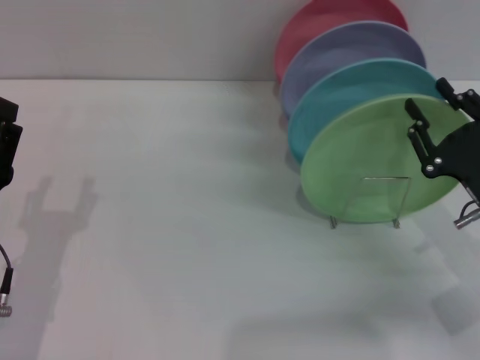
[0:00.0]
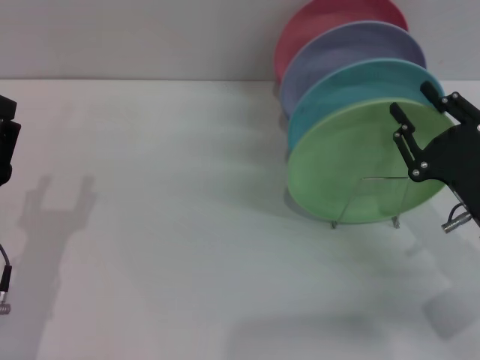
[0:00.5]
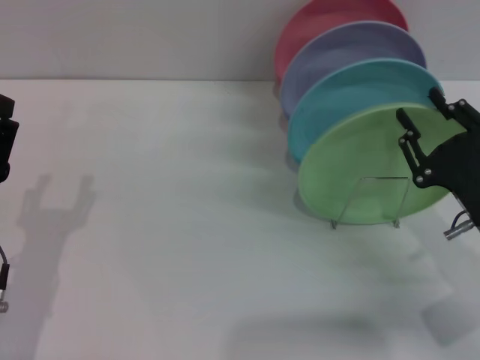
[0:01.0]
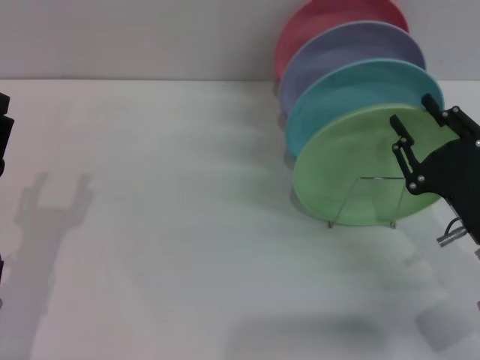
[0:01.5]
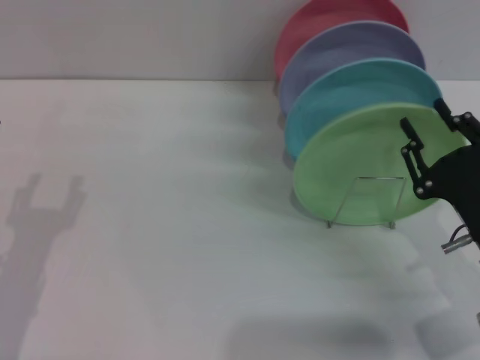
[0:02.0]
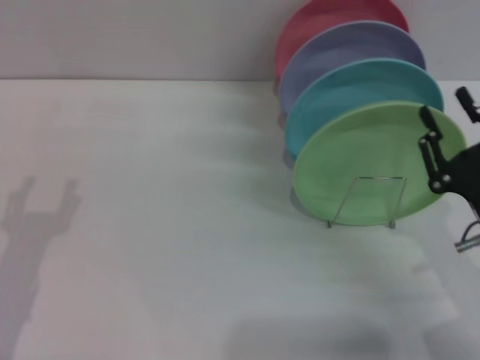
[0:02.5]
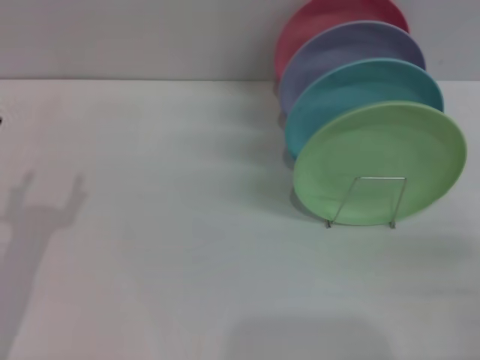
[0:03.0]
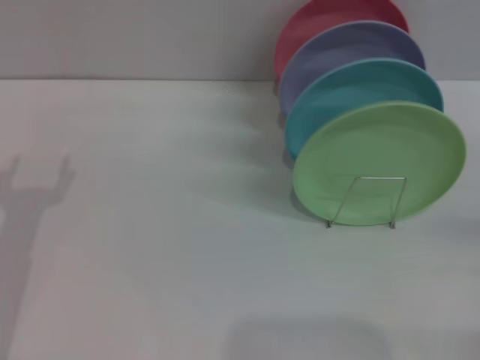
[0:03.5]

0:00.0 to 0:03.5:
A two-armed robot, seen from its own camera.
Task of the whole recording: Grip the plate with one hand, pass it to the other, then set it on the shelf.
Step, 0:00.0 to 0:02.5: Place the plate on the shelf with the right gripper.
0:00.0 to 0:02.0: The grippers make only small movements.
0:02.0 to 0:03.5: The right gripper goes approximately 15 cm to the right.

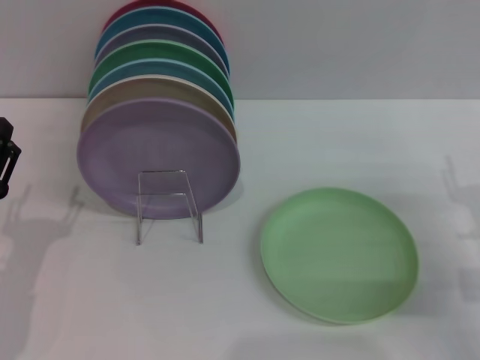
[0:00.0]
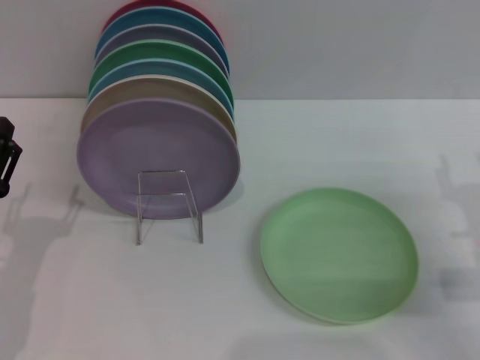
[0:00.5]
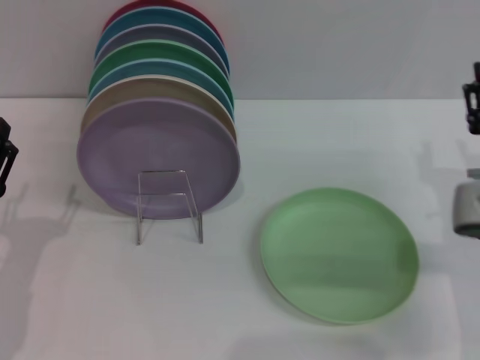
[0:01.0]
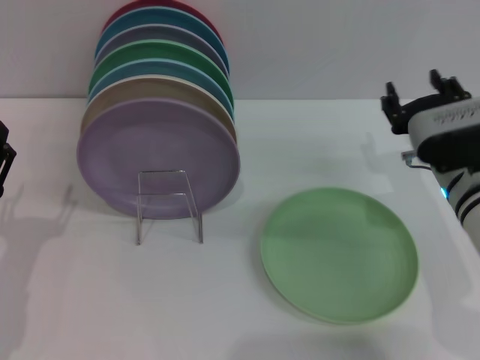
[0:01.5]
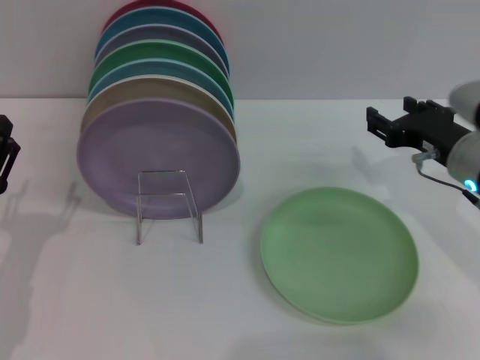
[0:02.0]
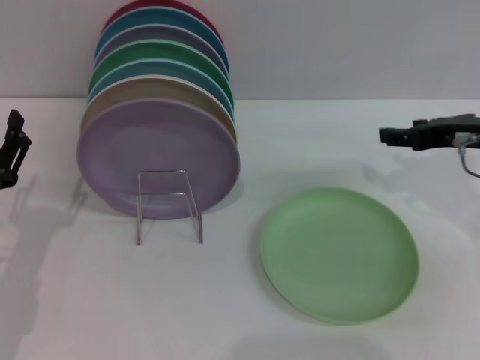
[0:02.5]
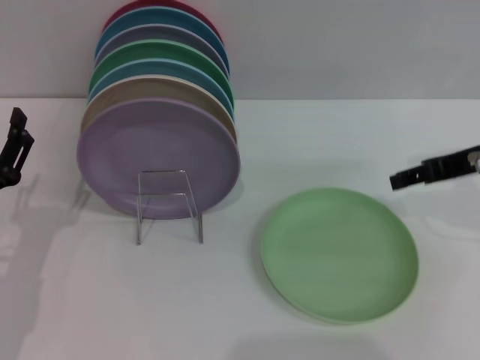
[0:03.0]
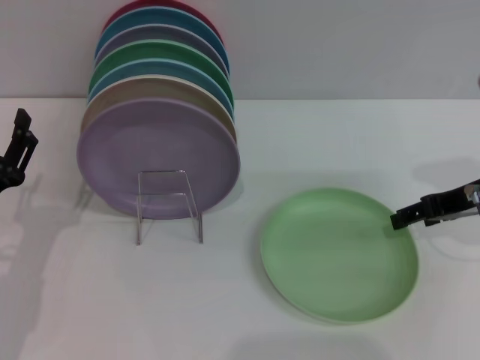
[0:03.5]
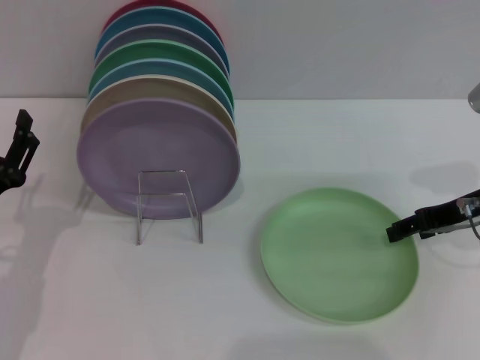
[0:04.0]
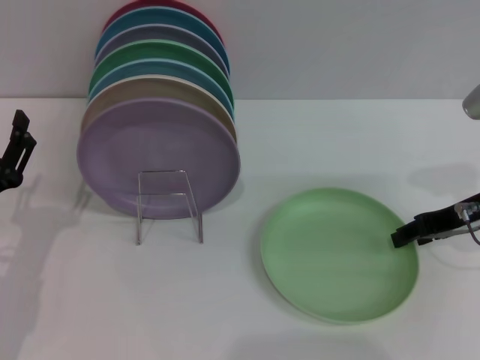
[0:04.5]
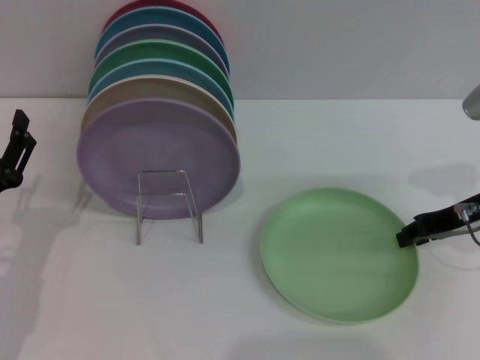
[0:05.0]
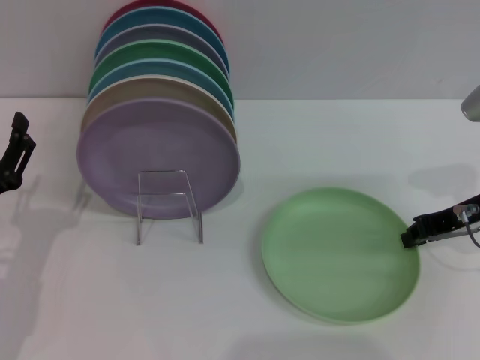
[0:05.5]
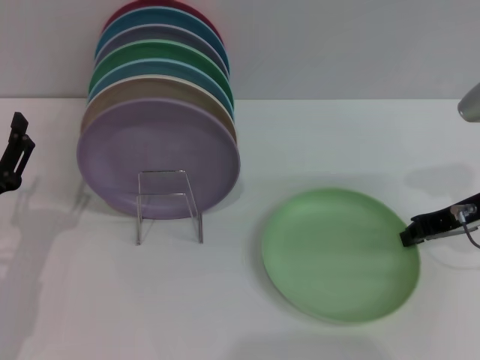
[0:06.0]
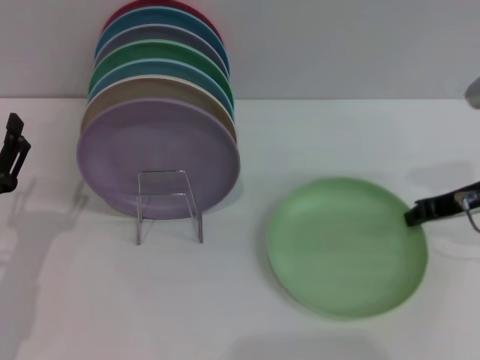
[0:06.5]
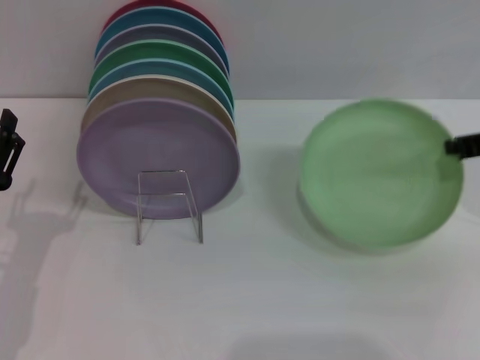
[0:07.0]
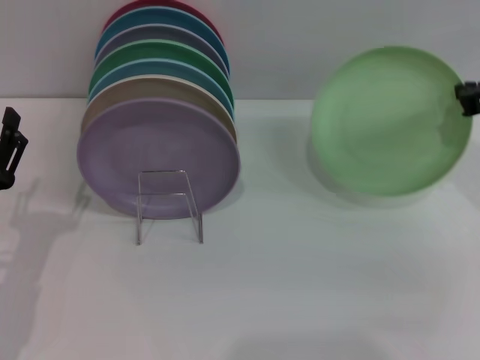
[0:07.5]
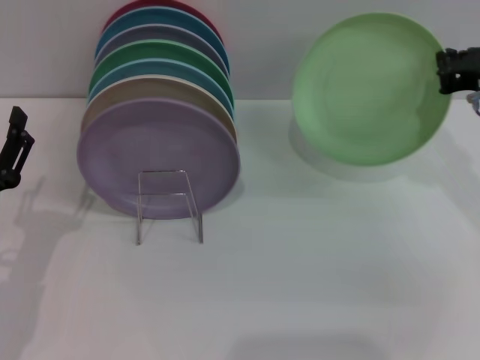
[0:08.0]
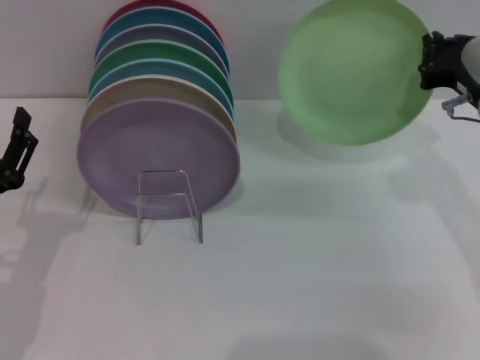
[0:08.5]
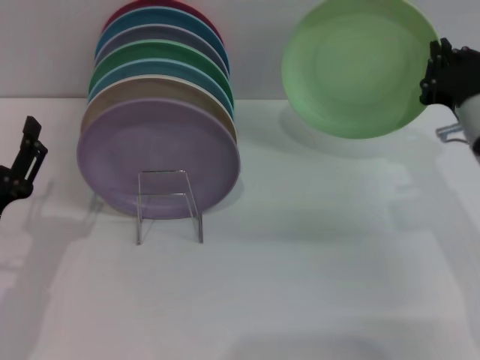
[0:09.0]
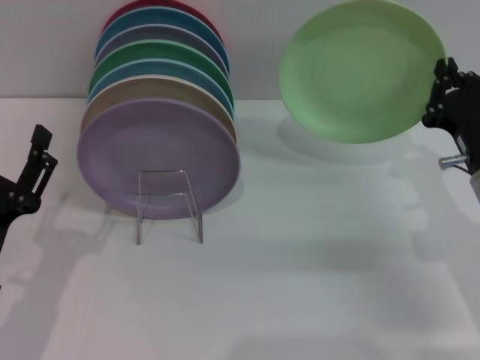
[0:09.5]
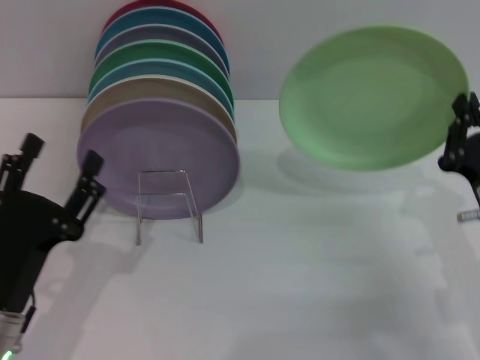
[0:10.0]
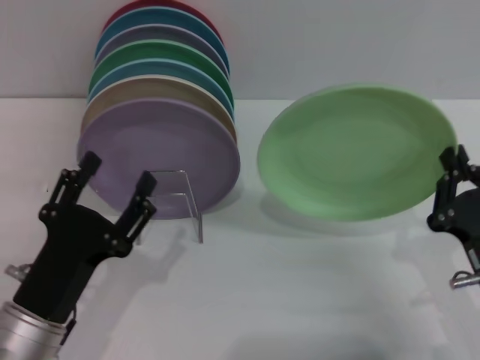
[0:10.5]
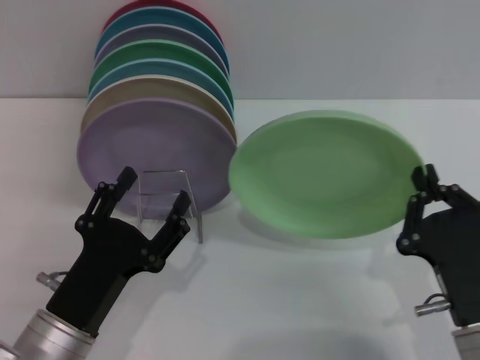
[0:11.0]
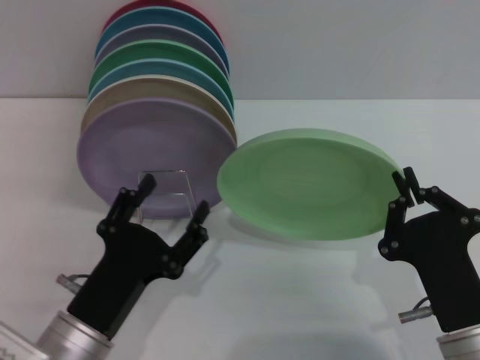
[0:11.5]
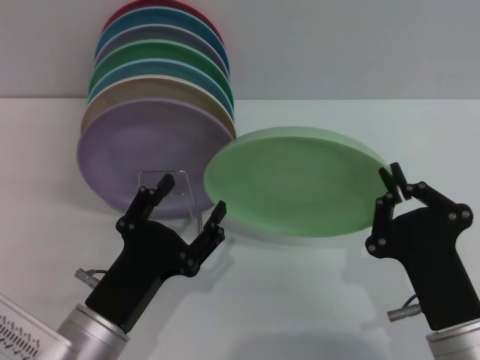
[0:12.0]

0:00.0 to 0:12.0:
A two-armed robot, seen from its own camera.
Task of the whole recording: Grip the plate with one hand, pass it to the other, then set it on the shelf.
Step, 0:00.0 to 0:07.0: Pick up the plate with the right gripper.
0:00.0 to 0:02.0: The right gripper is displaced forward, upward and to the left by about 10 cm.
0:04.0 to 0:06.0: The right gripper closes up.
0:06.0 to 0:08.0: The right gripper moves upward, about 5 cm.
0:08.0 to 0:10.0: The left gripper ends up about 5 cm from where it was. The right gripper shifts about 15 cm downward and backward.
0:10.0 to 0:12.0: The right gripper moves backward and to the left, approximately 10 cm. Meanwhile the left gripper shifts approximately 5 cm to the right.

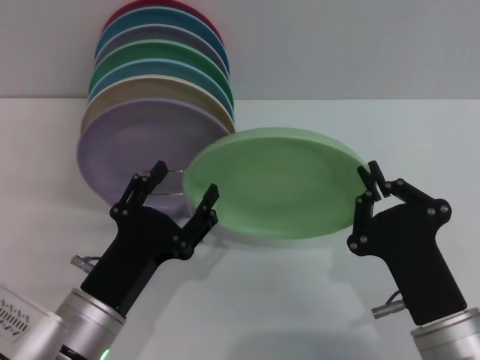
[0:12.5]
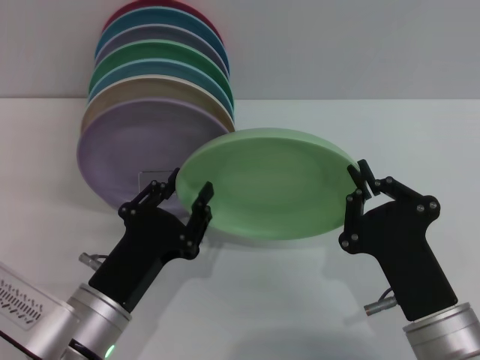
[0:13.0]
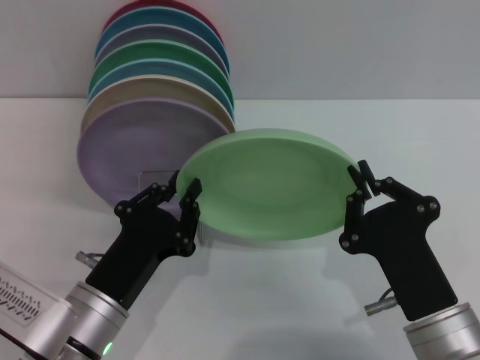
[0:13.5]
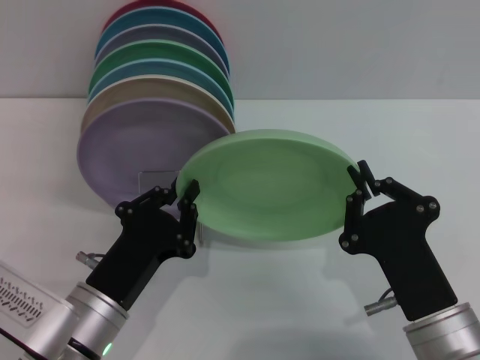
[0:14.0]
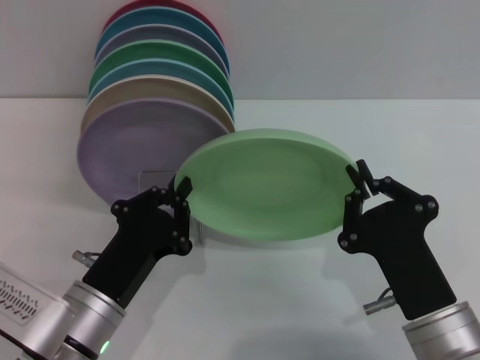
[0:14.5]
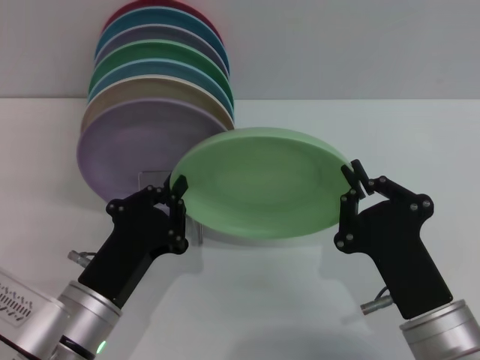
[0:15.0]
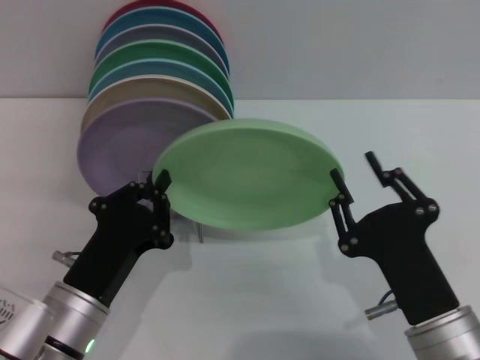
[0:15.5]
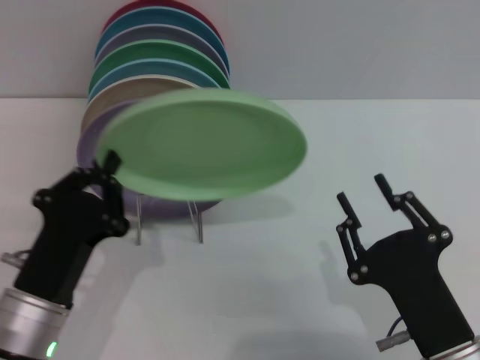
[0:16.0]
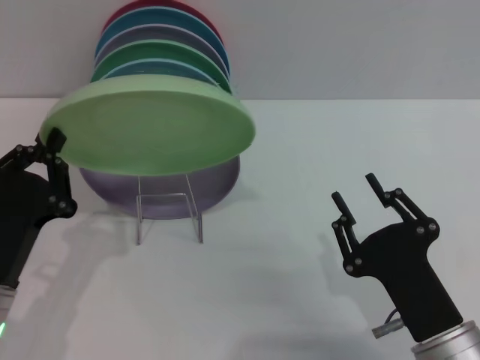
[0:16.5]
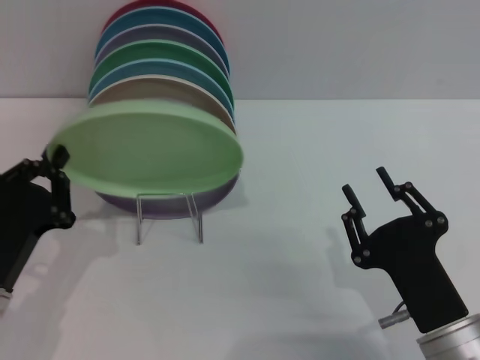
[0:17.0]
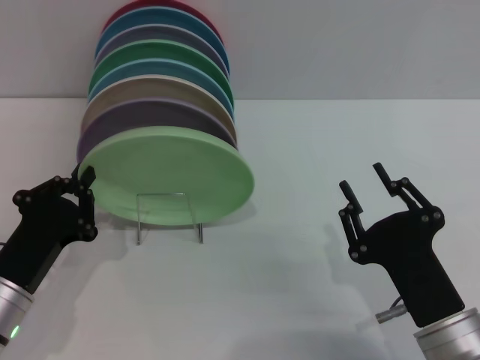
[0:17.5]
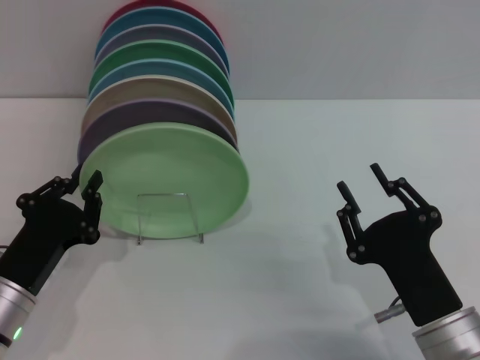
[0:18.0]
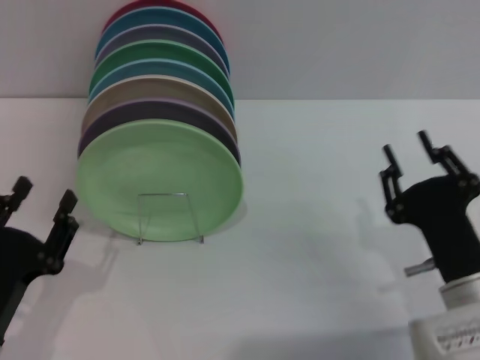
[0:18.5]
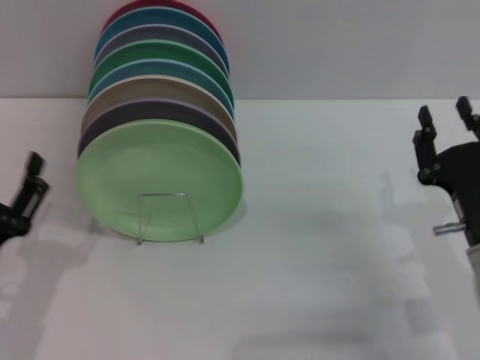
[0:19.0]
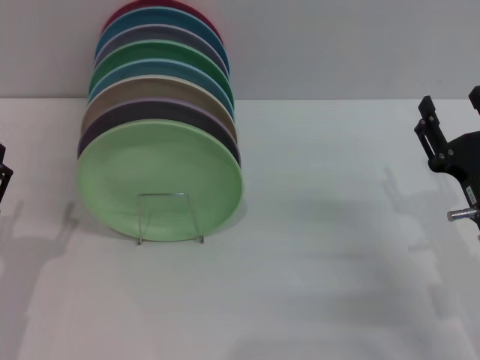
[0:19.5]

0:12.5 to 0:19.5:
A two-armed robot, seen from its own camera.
Task of the whole recording: Grip the plate with one hand, pass it to the other, then set it on the shelf.
Step, 0:12.5 to 0:15.5: Pass the plate from the right gripper to the left gripper.
Step, 0:16.0 to 0:18.0: Place the plate on the shelf with the left gripper.
0:12.5 to 0:14.5: The left gripper closes its fingers.
0:14.5 to 0:16.0: The right gripper opens its fingers.
0:16.0 to 0:17.5: The left gripper moves to the left, roughly 5 cm.
0:17.5 to 0:19.5: The left gripper opens up. The right gripper shifts some 10 cm forward and to the right, and opens up.
